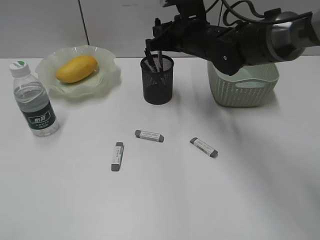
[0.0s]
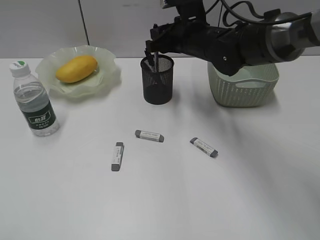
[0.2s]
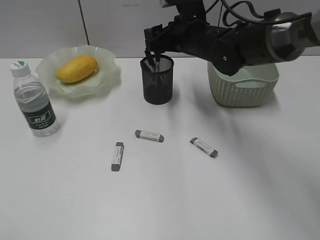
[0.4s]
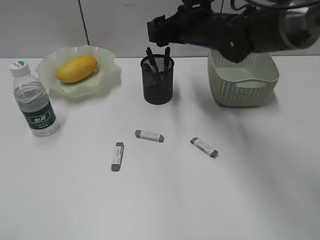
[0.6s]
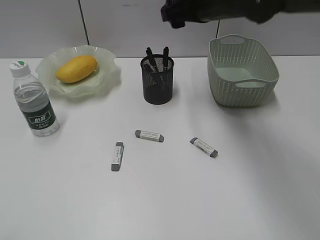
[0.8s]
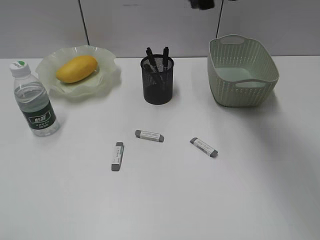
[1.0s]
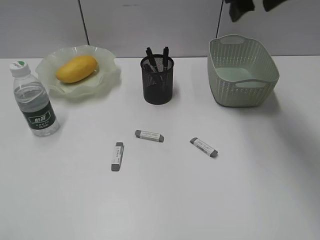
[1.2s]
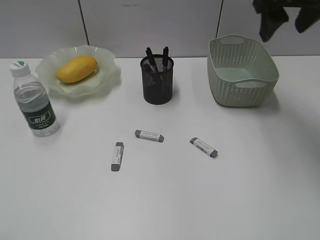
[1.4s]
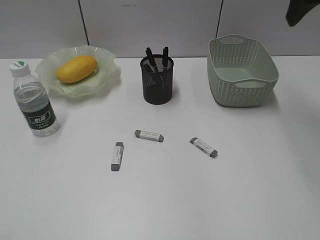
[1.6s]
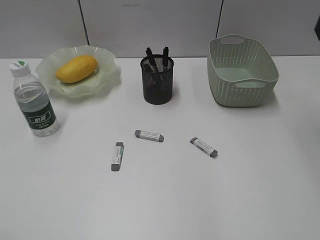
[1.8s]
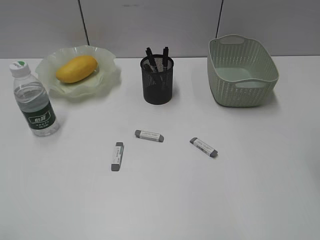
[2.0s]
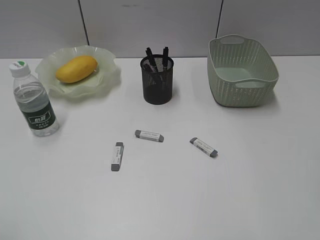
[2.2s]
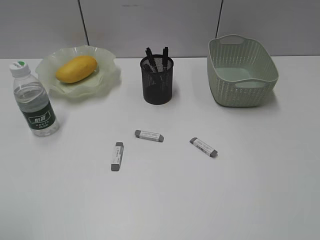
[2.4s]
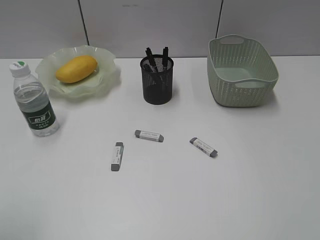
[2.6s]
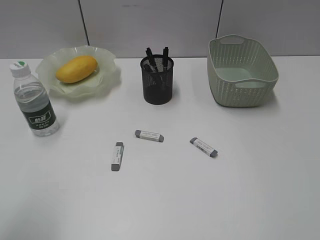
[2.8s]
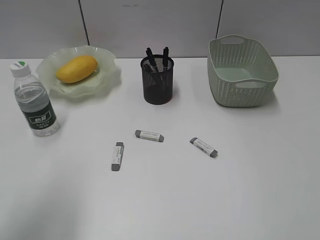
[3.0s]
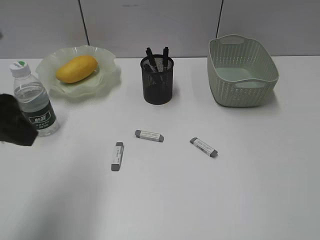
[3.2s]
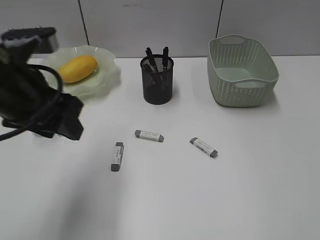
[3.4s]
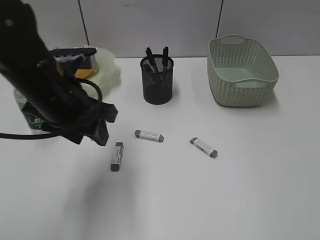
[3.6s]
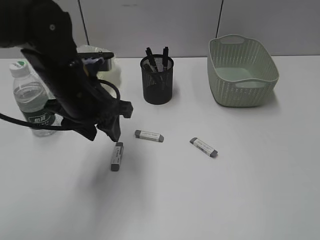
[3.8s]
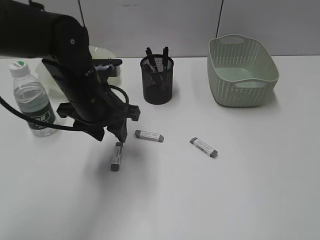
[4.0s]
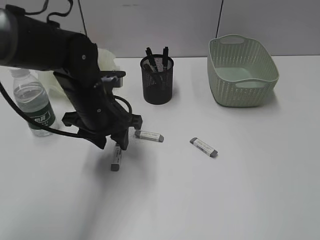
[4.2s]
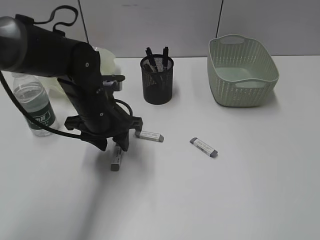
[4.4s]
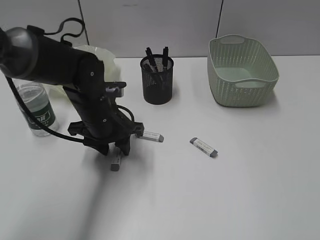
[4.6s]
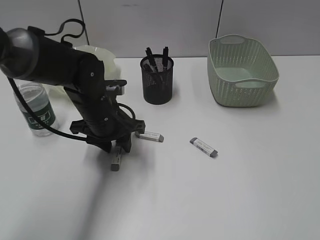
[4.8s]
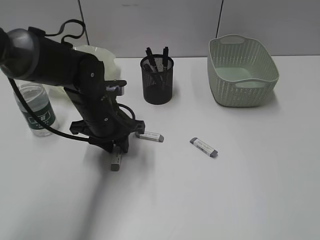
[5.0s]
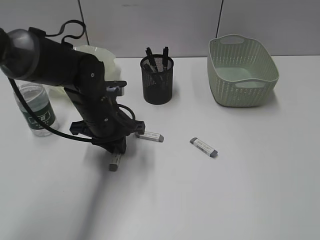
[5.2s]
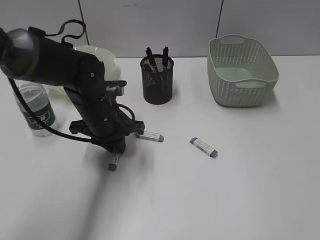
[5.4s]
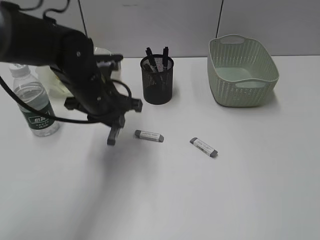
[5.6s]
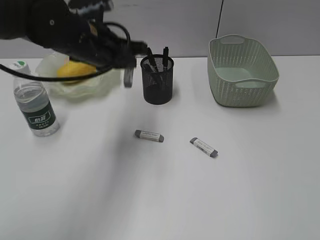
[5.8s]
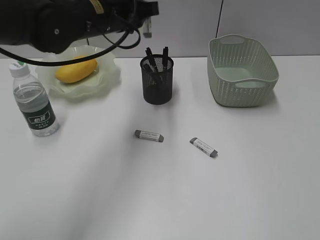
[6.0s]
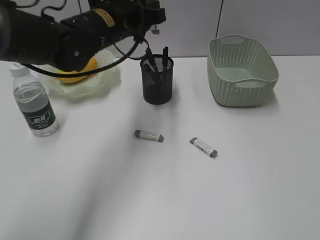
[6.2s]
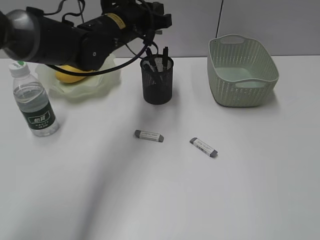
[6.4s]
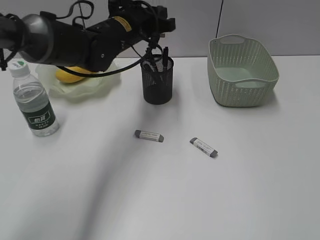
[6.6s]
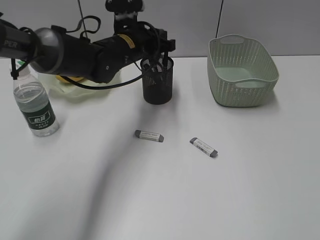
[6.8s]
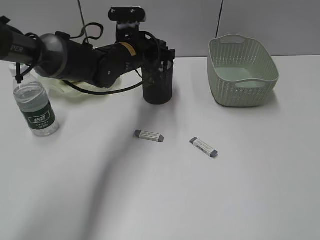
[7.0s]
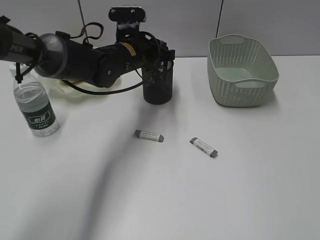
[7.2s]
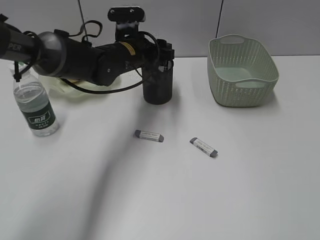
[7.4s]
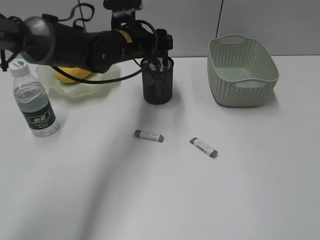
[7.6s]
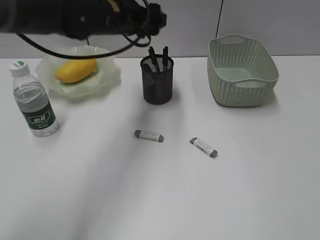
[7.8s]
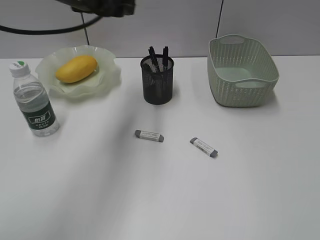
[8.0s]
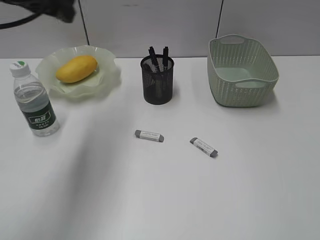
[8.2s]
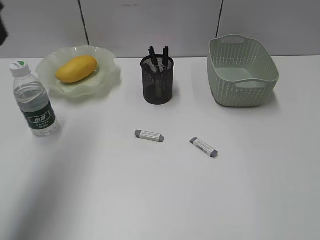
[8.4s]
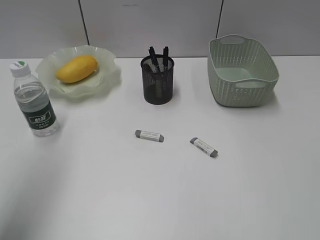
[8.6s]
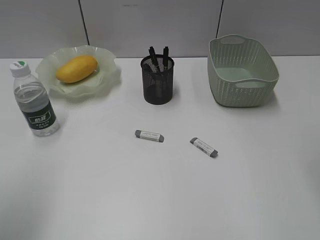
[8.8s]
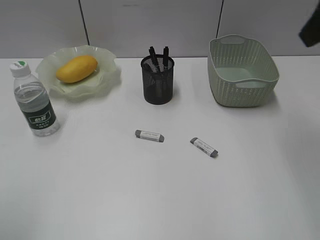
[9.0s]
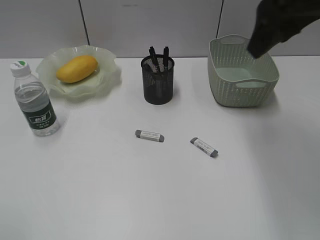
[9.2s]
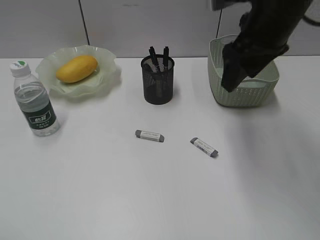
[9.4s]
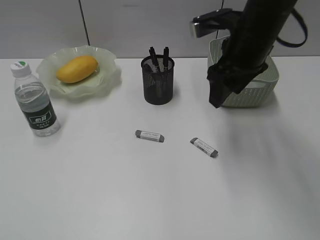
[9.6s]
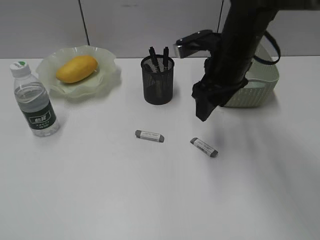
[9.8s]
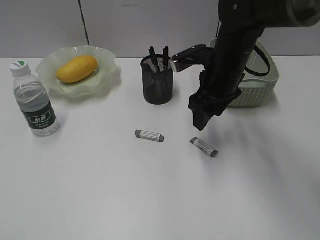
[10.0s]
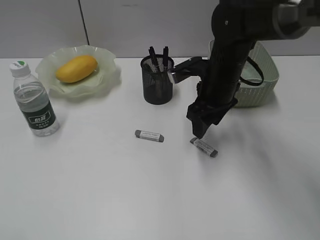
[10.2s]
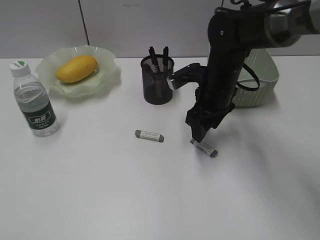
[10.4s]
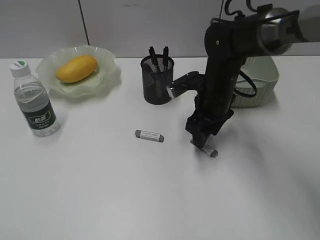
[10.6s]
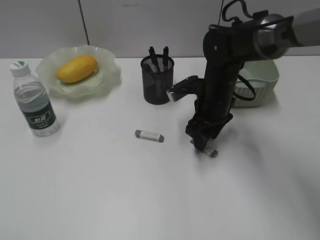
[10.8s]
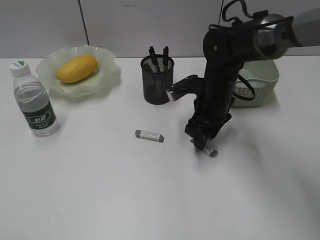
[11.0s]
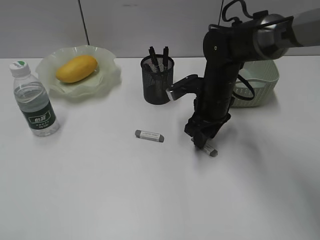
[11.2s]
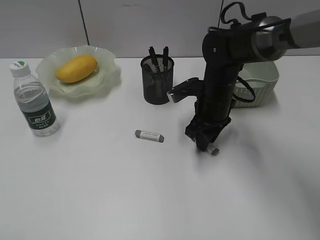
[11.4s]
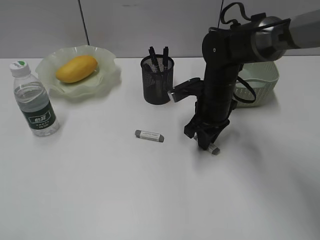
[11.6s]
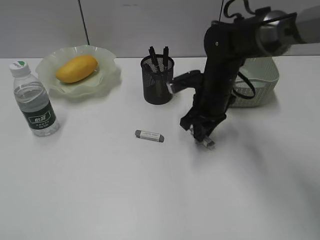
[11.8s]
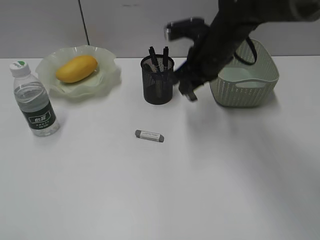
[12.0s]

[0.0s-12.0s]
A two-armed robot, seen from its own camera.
Step, 0.6s to 5.2s: Grasp the eraser with left gripper.
Step, 5.4s to 7.4s: Place the eraser in pen holder with left gripper.
Step, 7.6s to 11.6s: Grasp the eraser with right gripper.
0.0s to 1.6s: The right gripper moves upward, to the right and backward, some 25 cm, and opens.
1.6s to 3.0s: The right gripper travels backward by some 30 cm; the left gripper shifts about 15 cm forward and to the right.
3.0s to 4.4s: The left gripper is displaced forward, downward and to the right by about 30 cm.
4.4s to 6.0s: The left gripper heads upward, covering about 15 cm, and closes.
6.0s to 7.6s: The left gripper moves downward and forward, roughly 10 cm, and opens up.
7.6s to 9.0s: The right gripper shifts roughly 25 cm forward, while the left gripper is displaced backward and to the left by approximately 40 cm.
9.0s to 10.4s: The left gripper travels backward and downward by about 10 cm. Meanwhile the right gripper goes some 30 cm downward, to the left and forward.
10.4s to 12.0s: The right gripper moves upward, roughly 10 cm, and closes.

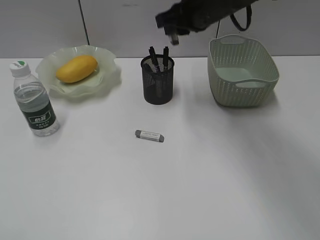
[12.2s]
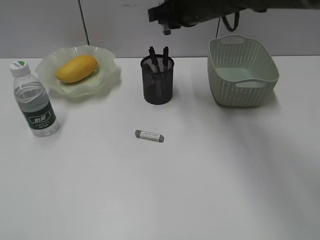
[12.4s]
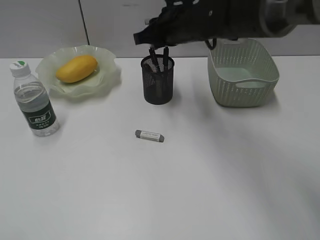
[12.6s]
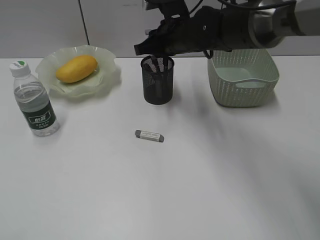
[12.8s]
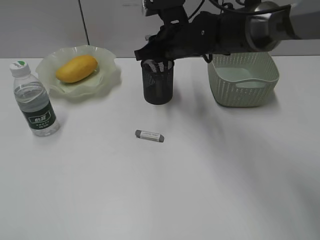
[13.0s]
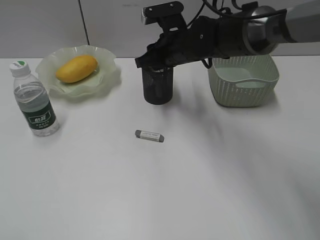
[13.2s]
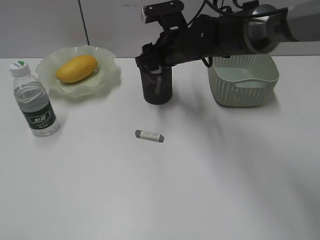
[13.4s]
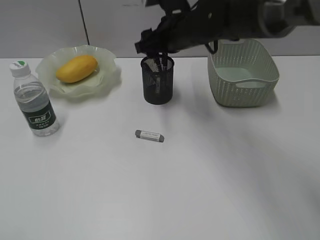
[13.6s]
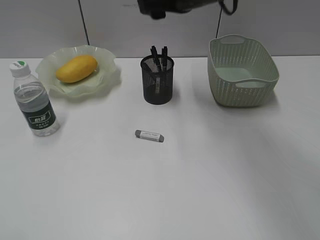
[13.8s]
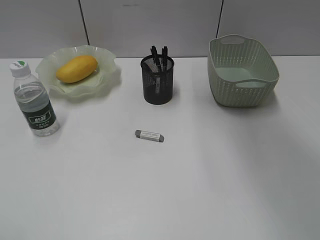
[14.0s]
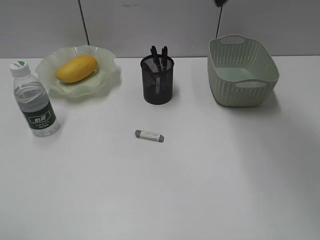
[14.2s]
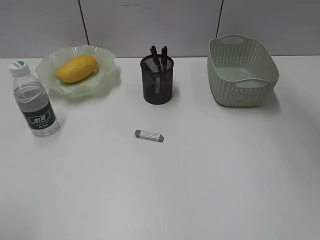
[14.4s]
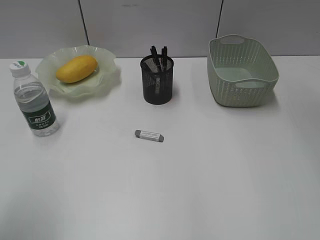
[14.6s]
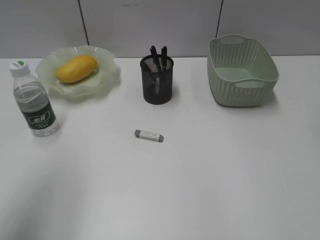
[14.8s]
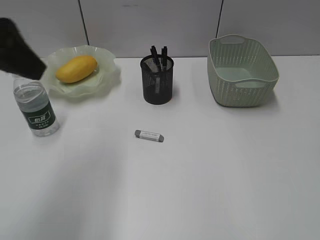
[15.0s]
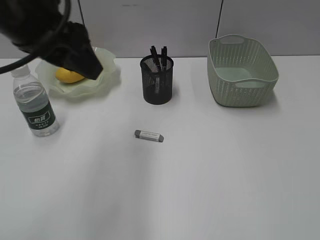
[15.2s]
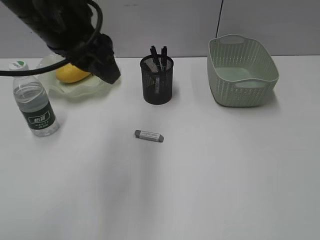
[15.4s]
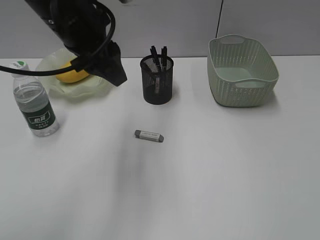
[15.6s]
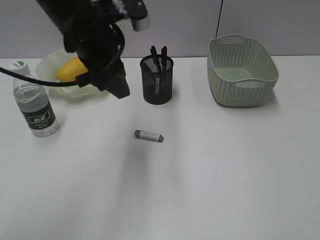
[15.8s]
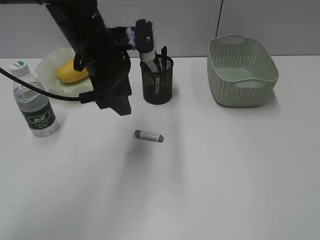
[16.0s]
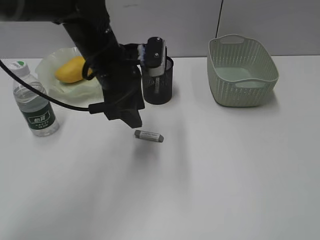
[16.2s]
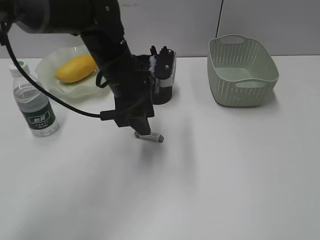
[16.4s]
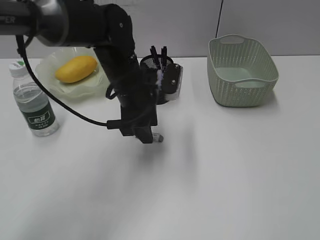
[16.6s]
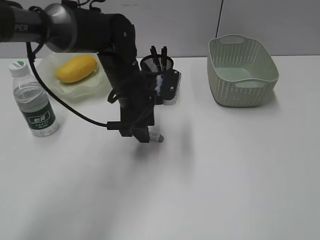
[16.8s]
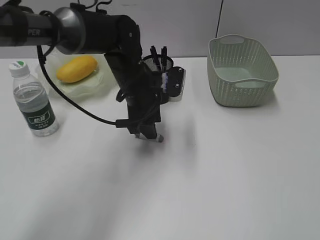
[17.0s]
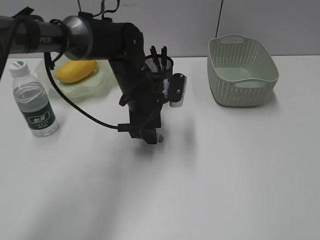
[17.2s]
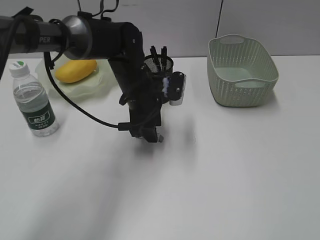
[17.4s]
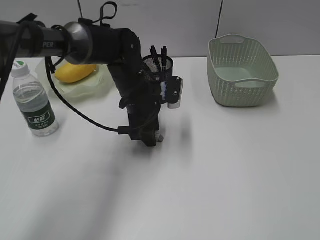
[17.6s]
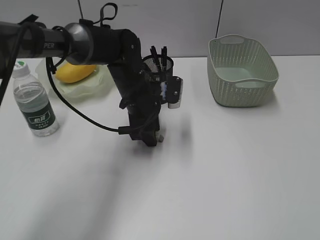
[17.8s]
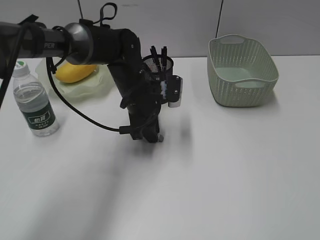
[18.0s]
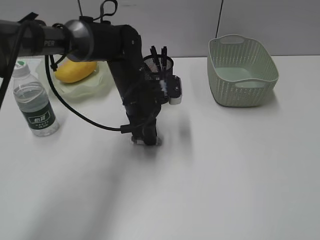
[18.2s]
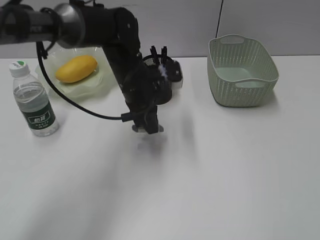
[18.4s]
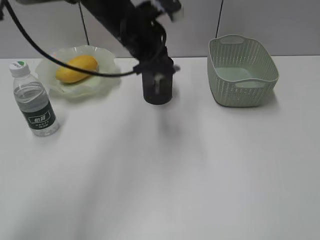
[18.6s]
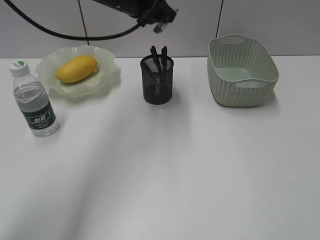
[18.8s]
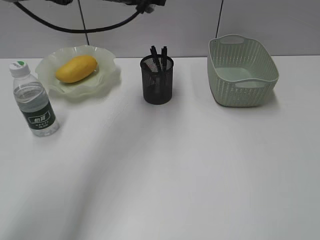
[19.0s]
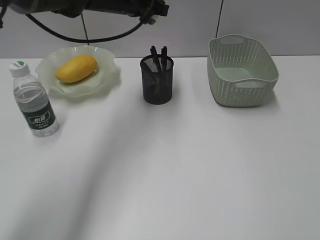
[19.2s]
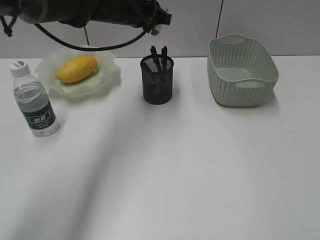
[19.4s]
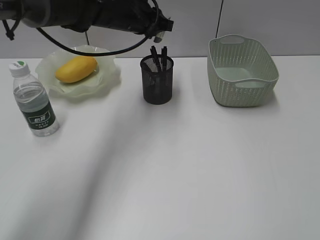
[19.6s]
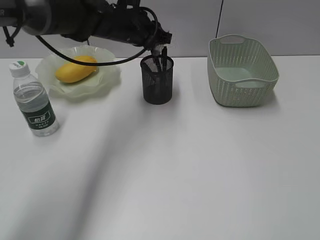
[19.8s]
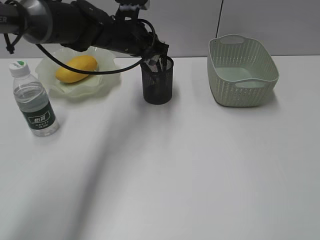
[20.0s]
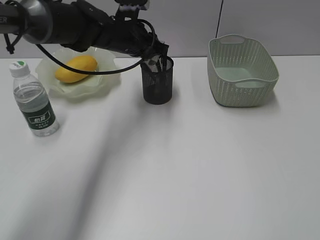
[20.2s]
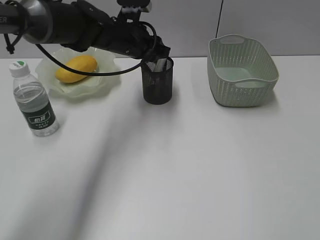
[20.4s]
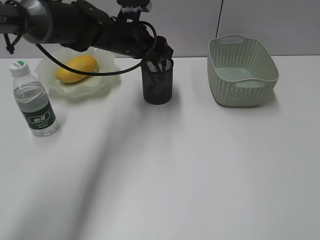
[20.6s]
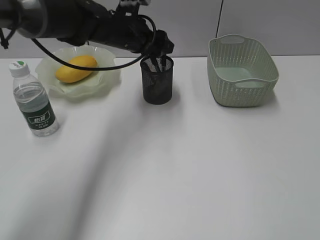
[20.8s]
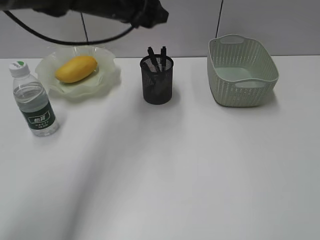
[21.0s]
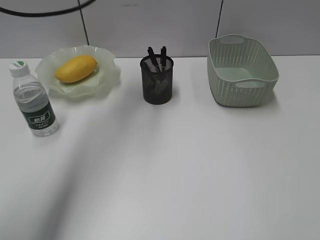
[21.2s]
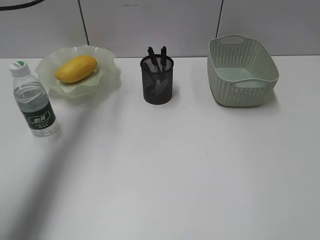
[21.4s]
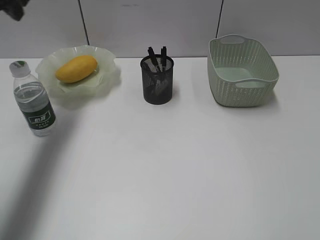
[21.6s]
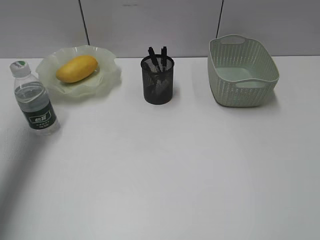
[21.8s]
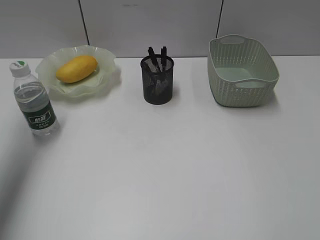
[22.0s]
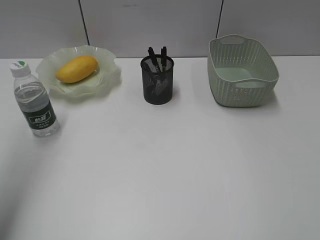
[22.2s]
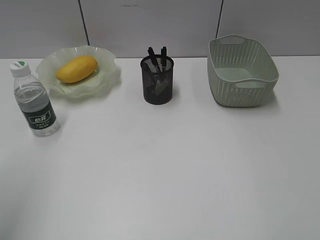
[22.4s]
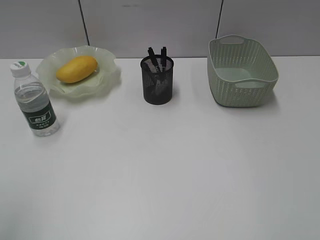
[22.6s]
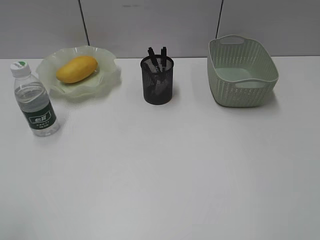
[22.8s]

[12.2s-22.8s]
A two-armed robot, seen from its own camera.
Step, 12.2s to 13.4s: Place the eraser in pen holder with right gripper.
Step, 13.6s to 18.0s: Grasp the eraser with left gripper.
Step, 18.2s to 20.6s: Place the eraser in pen holder with left gripper.
12.2s to 13.8s: The right gripper moves about 10 cm downward and comes back, and opens its fingers.
13.8s to 15.2s: The left gripper is displaced forward and to the right by approximately 30 cm, while the right gripper goes roughly 30 cm to the right and backward.
15.2s to 16.8s: The right gripper moves backward and downward, roughly 15 cm. The left gripper moves downward, forward and to the right, roughly 25 cm.
16.8s to 18.2s: The left gripper closes its fingers.
18.2s to 19.8s: The left gripper is displaced upward and forward by approximately 10 cm.
19.8s to 21.2s: The left gripper shifts approximately 15 cm upward and to the left, and opens up.
21.2s to 22.8s: The left gripper is displaced backward and to the left by some 40 cm.
